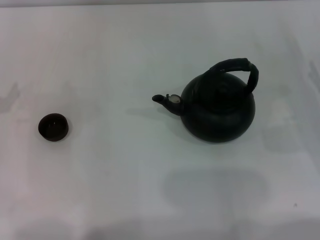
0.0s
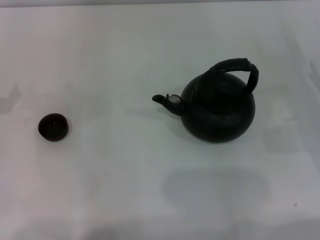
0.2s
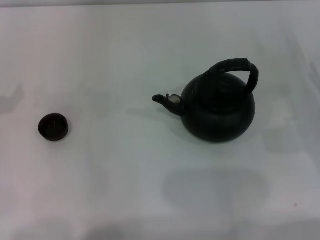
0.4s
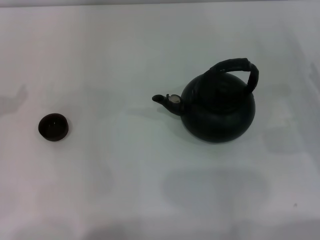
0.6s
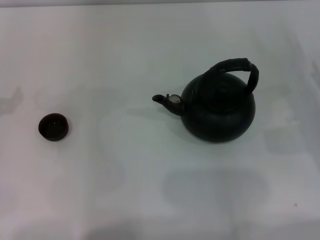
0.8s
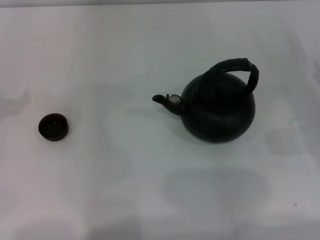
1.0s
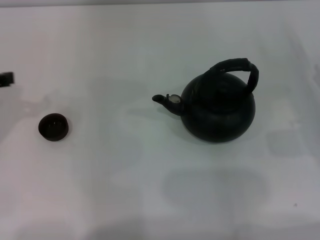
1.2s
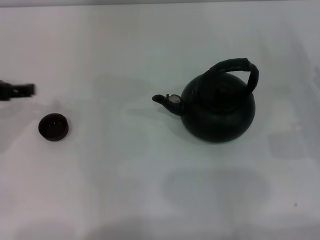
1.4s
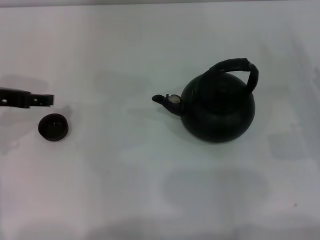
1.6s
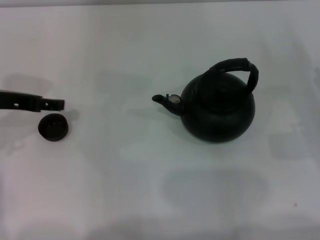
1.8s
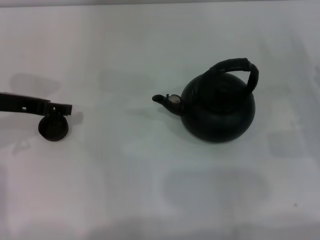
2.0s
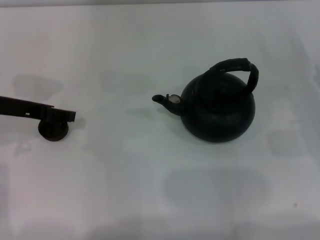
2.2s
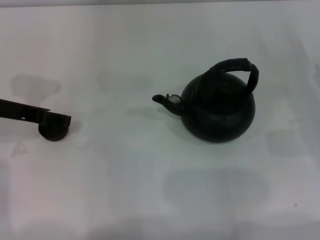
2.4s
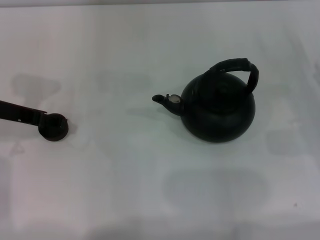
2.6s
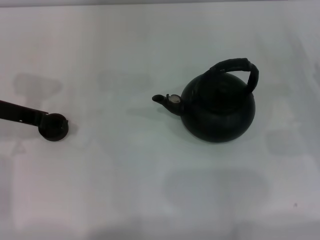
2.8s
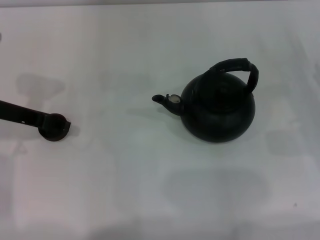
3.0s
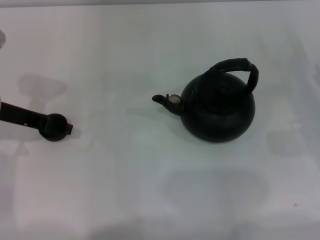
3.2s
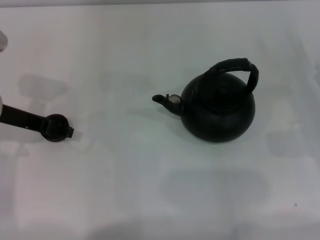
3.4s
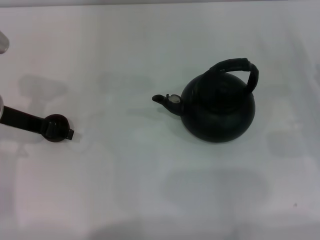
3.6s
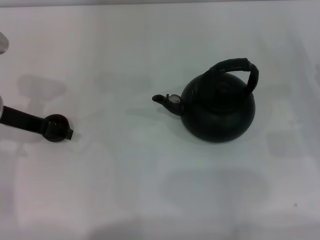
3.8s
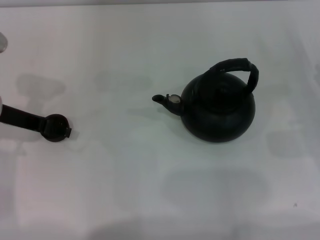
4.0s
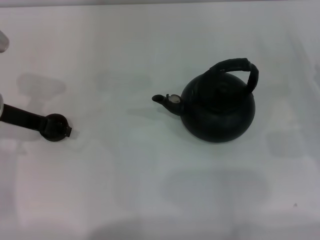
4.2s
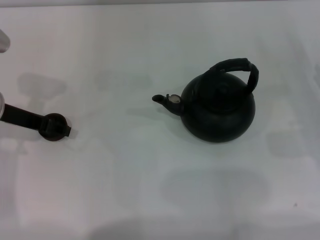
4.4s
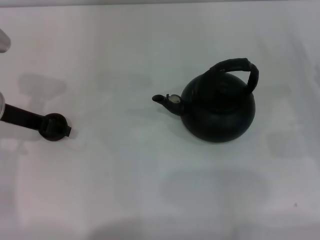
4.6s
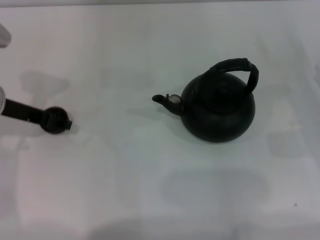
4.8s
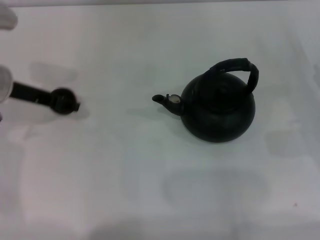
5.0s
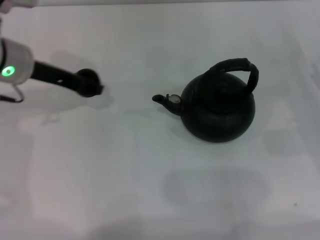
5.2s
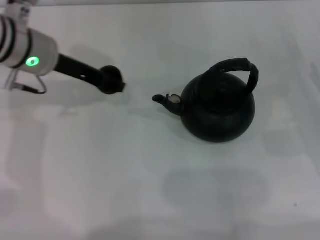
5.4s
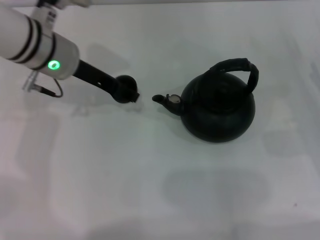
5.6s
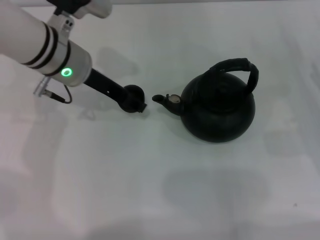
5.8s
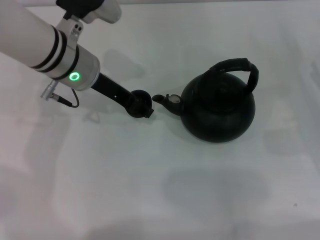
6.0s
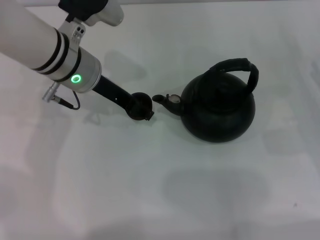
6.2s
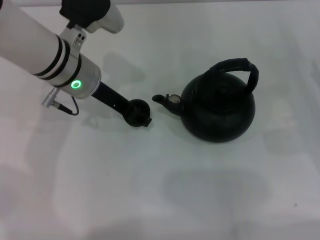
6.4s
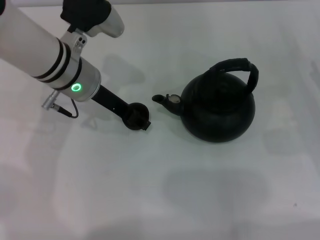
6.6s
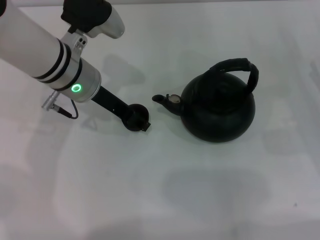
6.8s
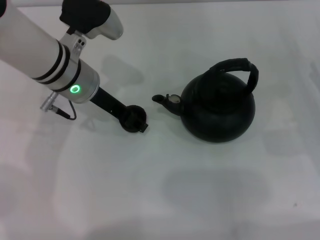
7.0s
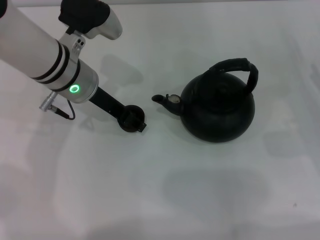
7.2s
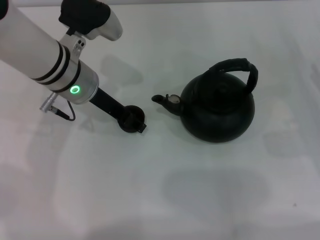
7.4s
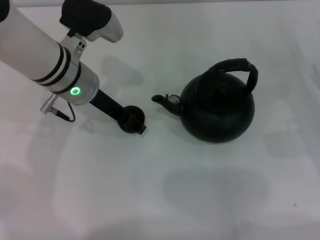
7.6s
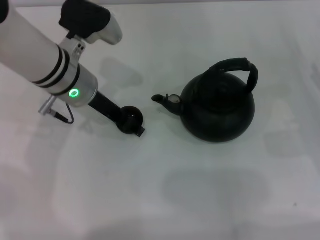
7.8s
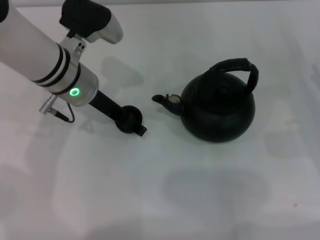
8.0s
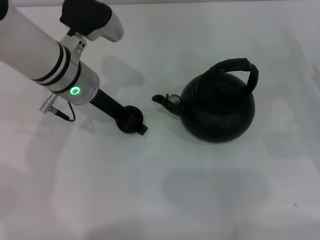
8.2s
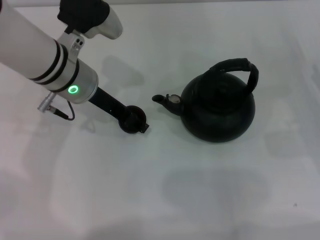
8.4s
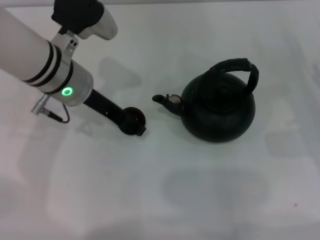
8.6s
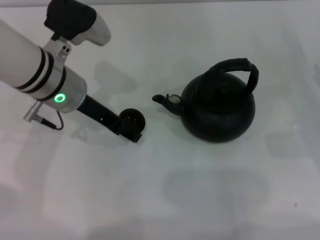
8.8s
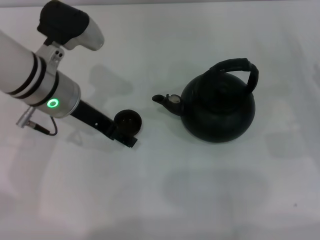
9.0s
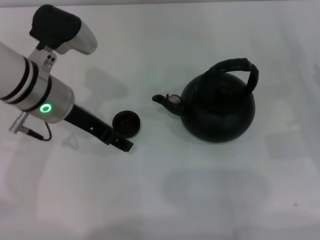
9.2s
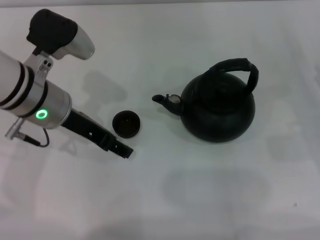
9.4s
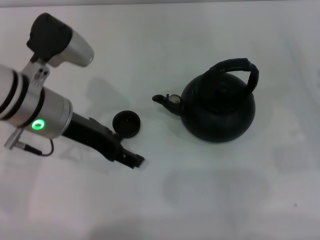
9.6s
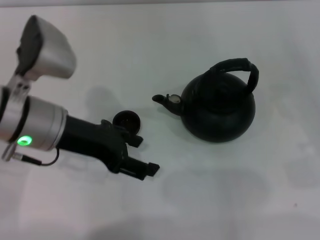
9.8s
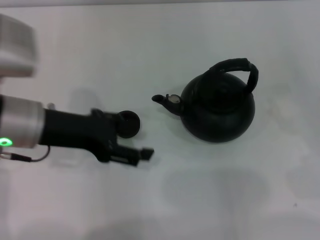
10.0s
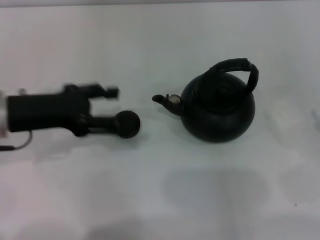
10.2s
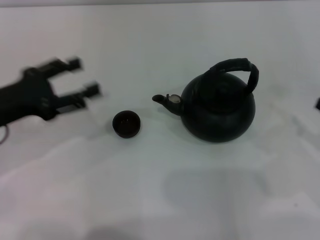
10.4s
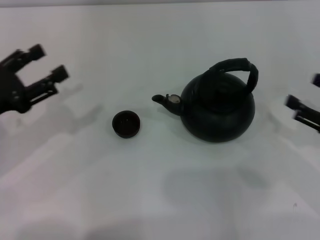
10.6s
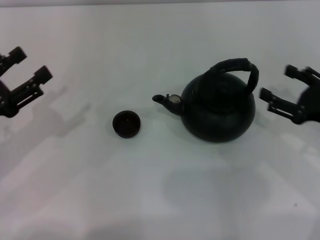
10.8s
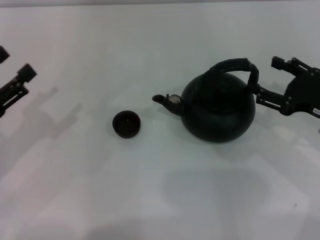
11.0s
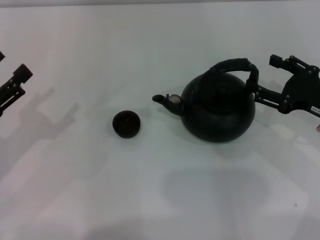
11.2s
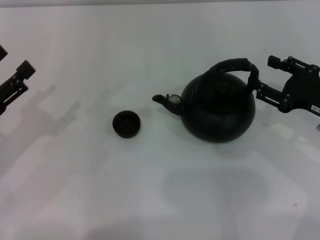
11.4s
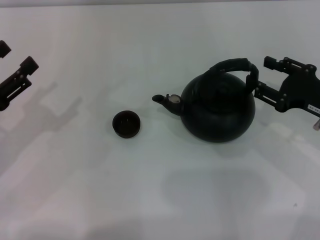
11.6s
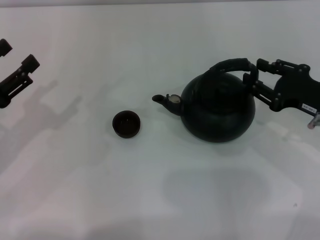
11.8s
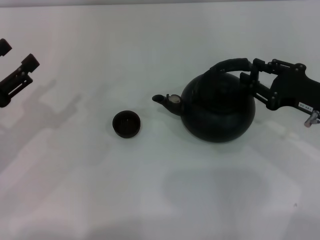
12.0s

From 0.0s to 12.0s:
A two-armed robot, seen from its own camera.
Task of the whole recording: Grasp the handle of the teapot with one hand and pour tea into the teacup.
Step, from 0.0s to 4.8s: Pick up the teacup with the left gripper.
Step, from 5.0s to 9.2s: Place the teacup in the center of view with the left gripper.
From 0.0s to 1.6s: The left gripper shifts some 10 cm to the right and forward, and opens up.
From 1.6s to 3.0s: The grippers move only a little.
From 3.0s to 4.4s: Both grippers stay put.
From 4.4s to 6.0s: The left gripper heads to the right and forward, covering some 15 cm, and closes.
From 6.0s to 7.6s: There are only small adjustments of the grippers.
From 7.6s to 9.0s: The left gripper opens.
From 9.0s to 10.4s: The right gripper is displaced backward by roughly 5 cm, while the left gripper is displaced to the left and backward by approximately 15 cm.
From 10.4s to 12.0s: The right gripper travels forward and to the left by about 10 cm, and closes up, while the left gripper ends up about 5 cm from where it was.

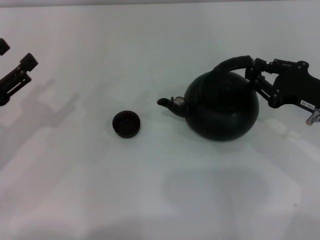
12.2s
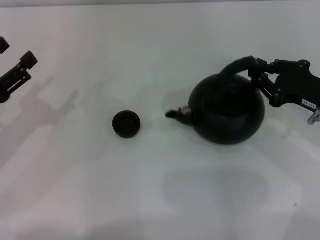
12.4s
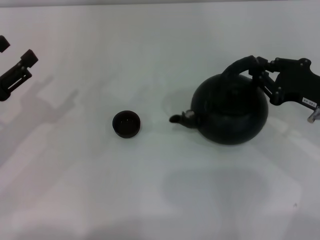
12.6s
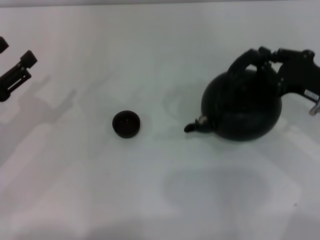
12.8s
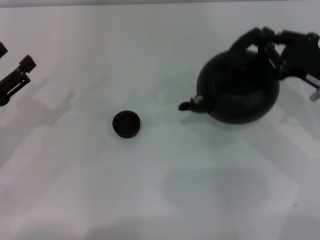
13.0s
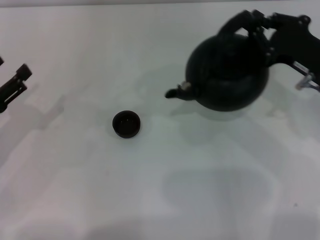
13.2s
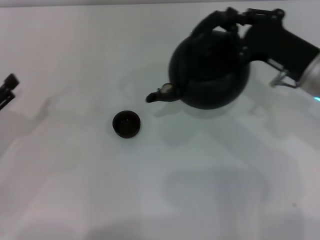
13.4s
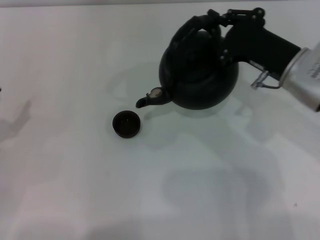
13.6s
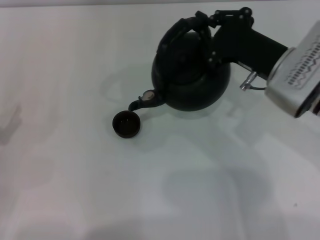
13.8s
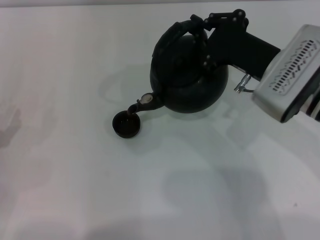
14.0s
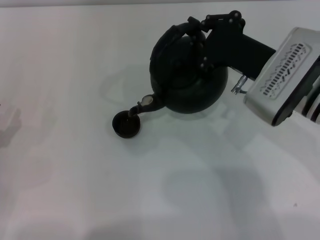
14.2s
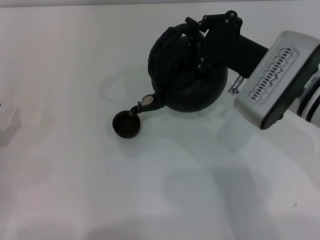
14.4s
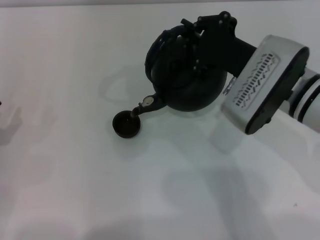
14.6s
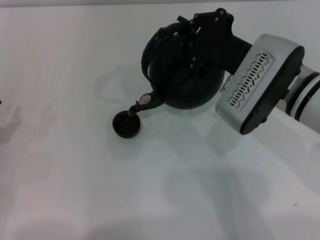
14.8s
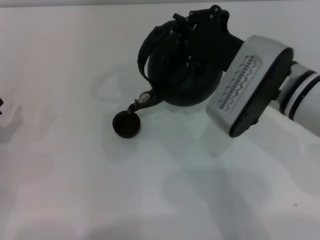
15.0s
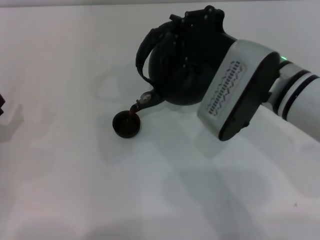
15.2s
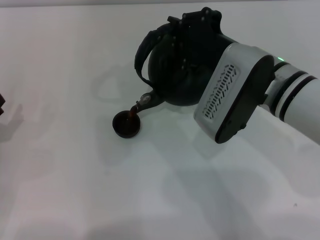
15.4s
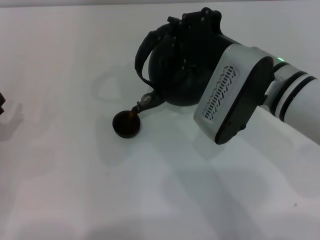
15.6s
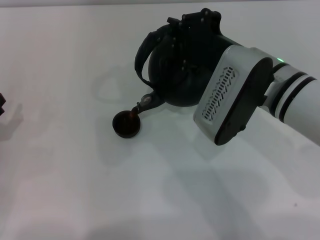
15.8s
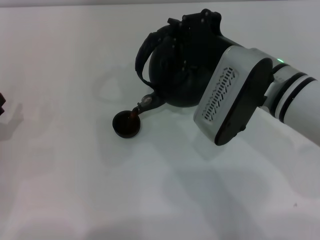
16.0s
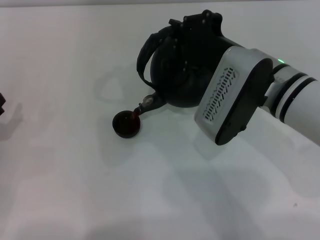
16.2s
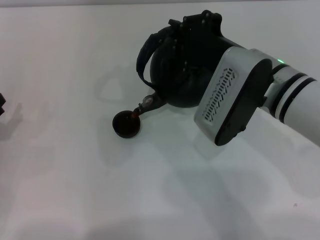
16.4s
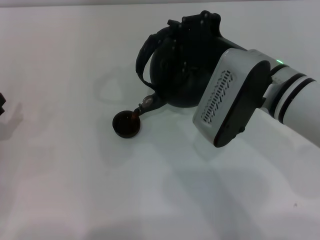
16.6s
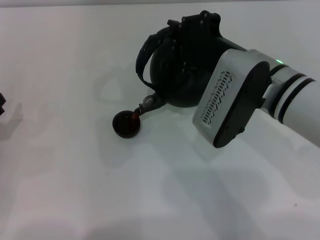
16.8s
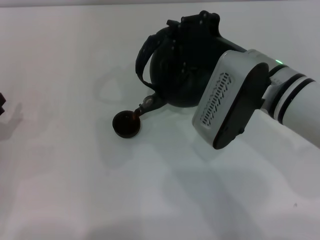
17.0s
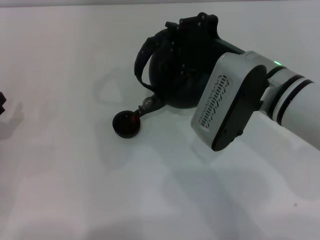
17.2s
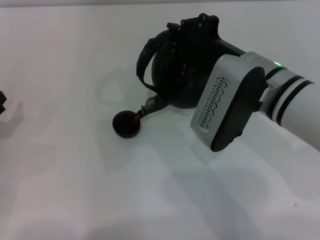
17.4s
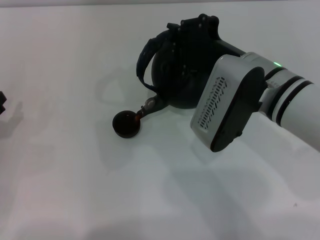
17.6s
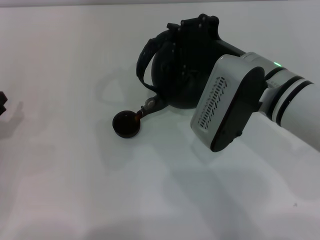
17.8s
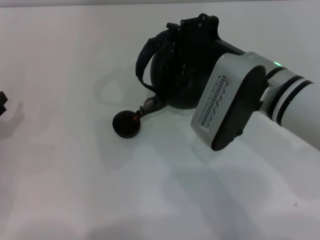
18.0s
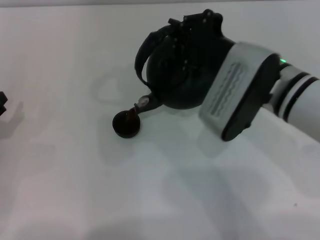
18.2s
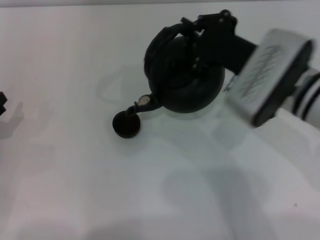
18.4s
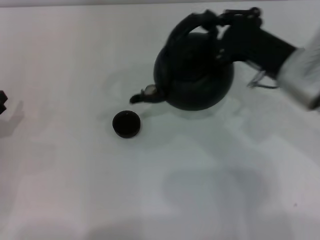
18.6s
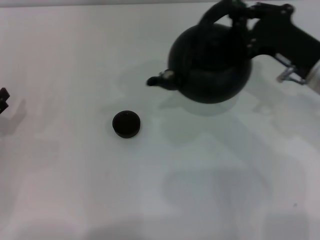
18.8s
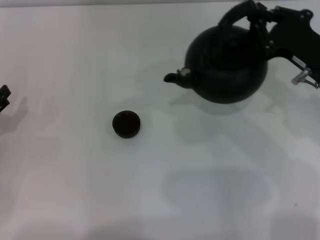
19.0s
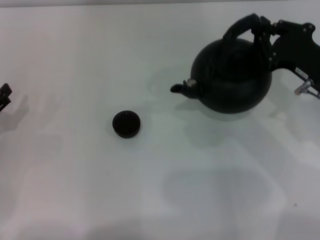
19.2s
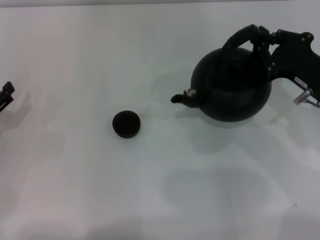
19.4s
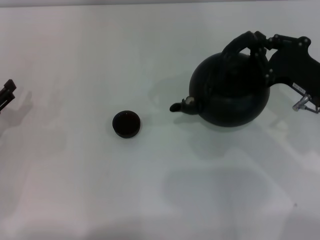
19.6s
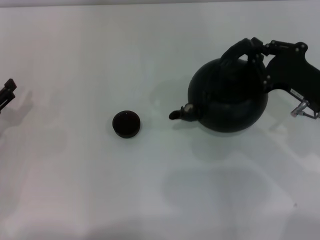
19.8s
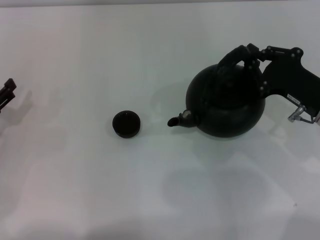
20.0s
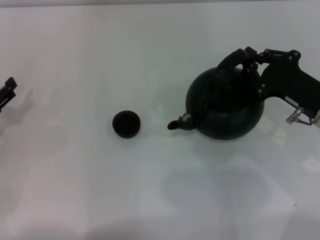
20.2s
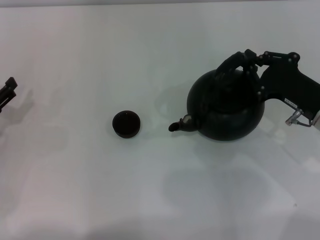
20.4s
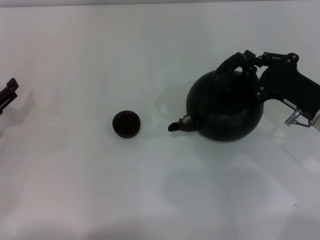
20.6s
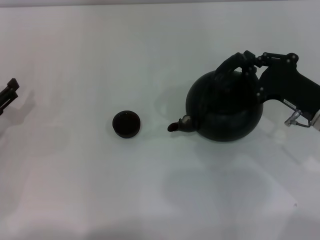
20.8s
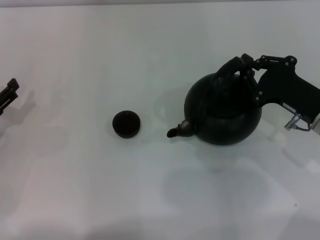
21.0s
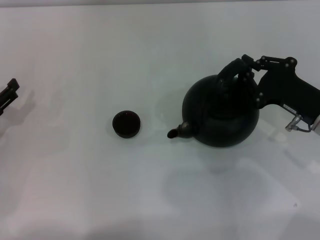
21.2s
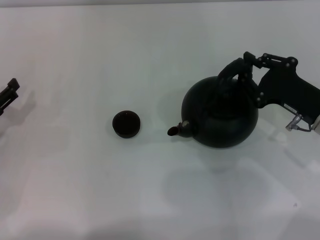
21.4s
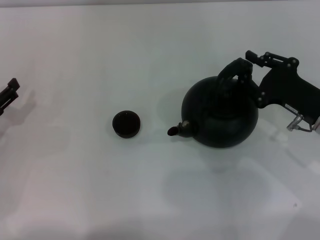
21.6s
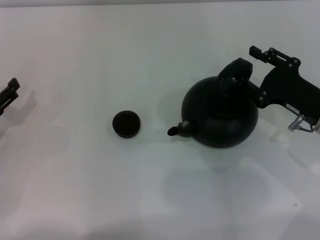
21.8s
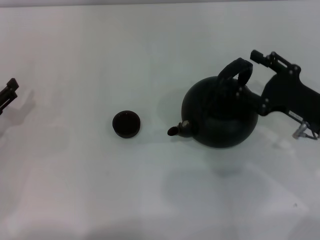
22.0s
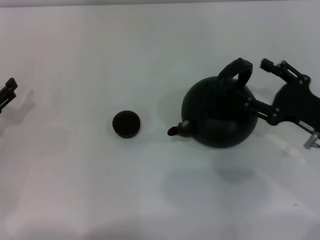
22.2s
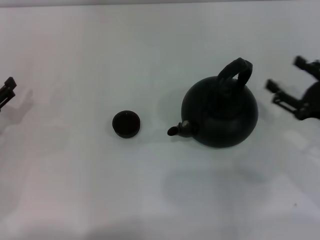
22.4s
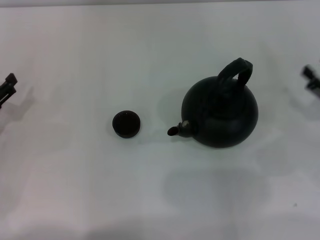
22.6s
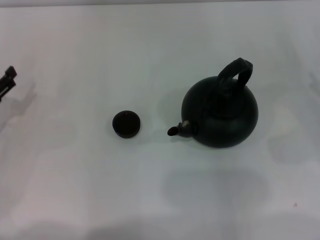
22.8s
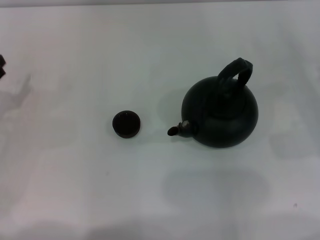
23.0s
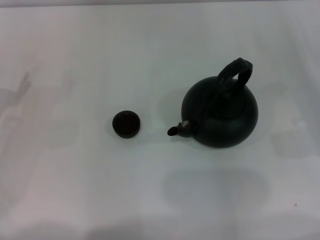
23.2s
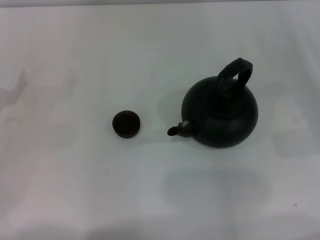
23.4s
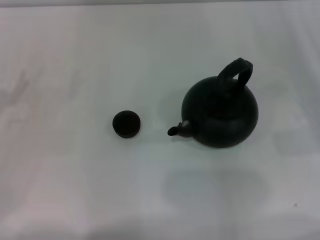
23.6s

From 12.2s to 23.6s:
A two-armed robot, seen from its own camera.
Task of the whole recording: Grasp the handle of the teapot with one hand and pour tea into the teacup.
Step, from 13.4s to 18.4s: Pour tea into the teacup with the right gripper.
Step, from 18.6s to 22.0s: Put down the teapot with the right gripper.
From 12.2s to 13.6s: The left gripper changes place by some 5 cm; the right gripper shifts roughly 10 cm to the left.
From 13.6s to 15.0s: The right gripper moves to the left, some 5 cm.
From 15.0s to 16.4s: The grippers move only a little.
From 16.4s to 17.8s: Both grippers stay about where they are.
From 17.8s to 19.4s: The right gripper moves to the right, roughly 15 cm.
From 19.4s to 20.8s: There are only small adjustments of the grippers.
From 20.8s to 22.2s: The right gripper opens up.
From 22.2s to 23.6s: The right gripper heads to the right, covering about 10 cm.
